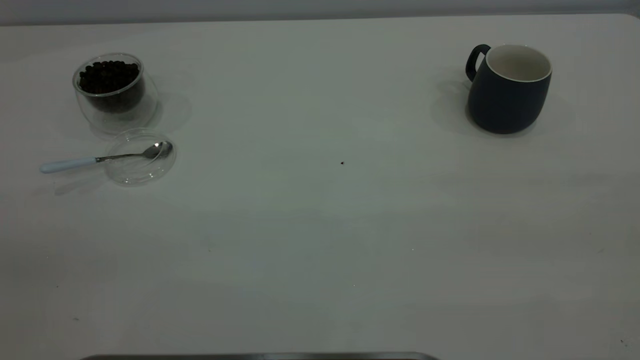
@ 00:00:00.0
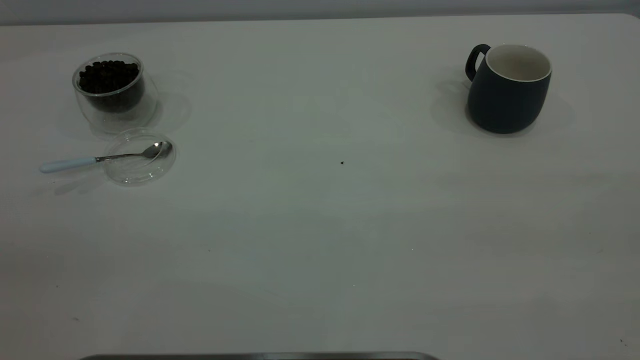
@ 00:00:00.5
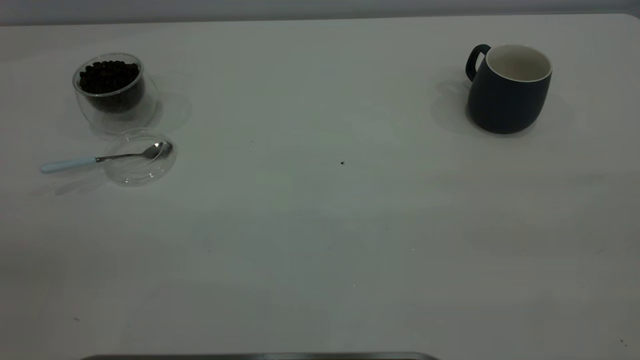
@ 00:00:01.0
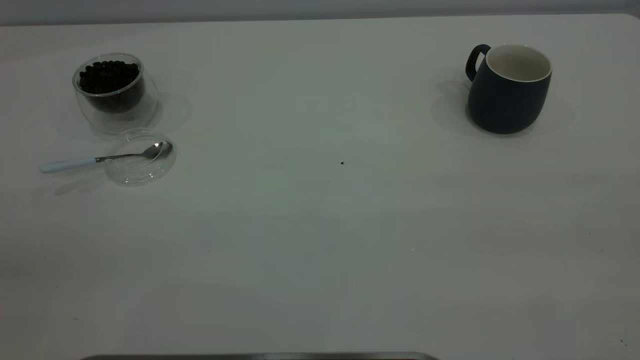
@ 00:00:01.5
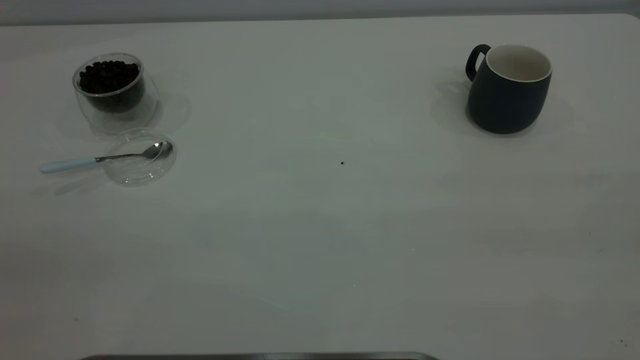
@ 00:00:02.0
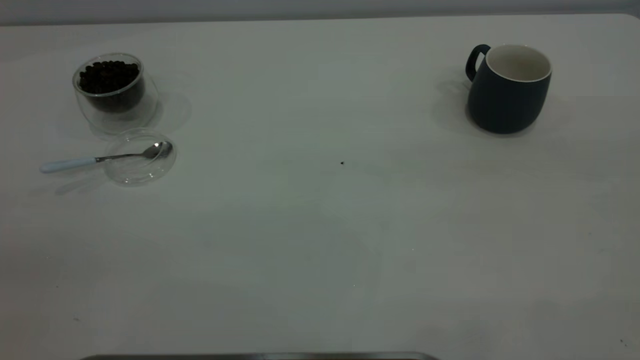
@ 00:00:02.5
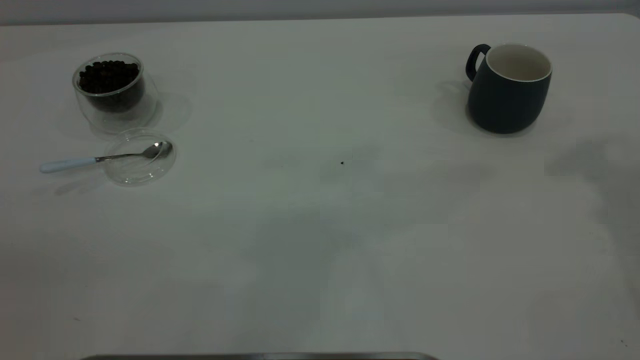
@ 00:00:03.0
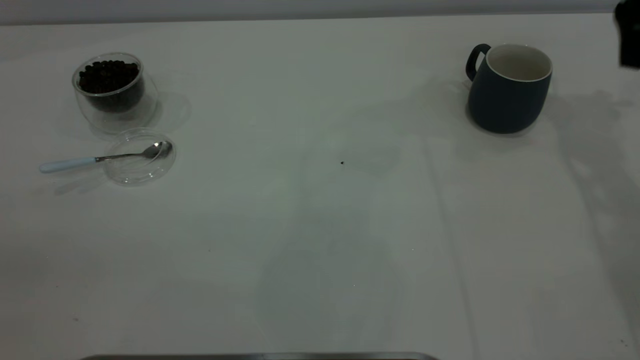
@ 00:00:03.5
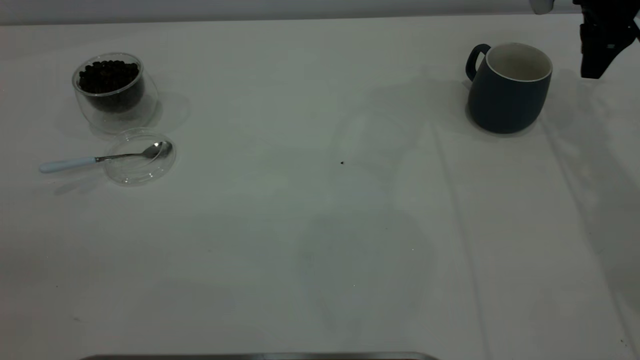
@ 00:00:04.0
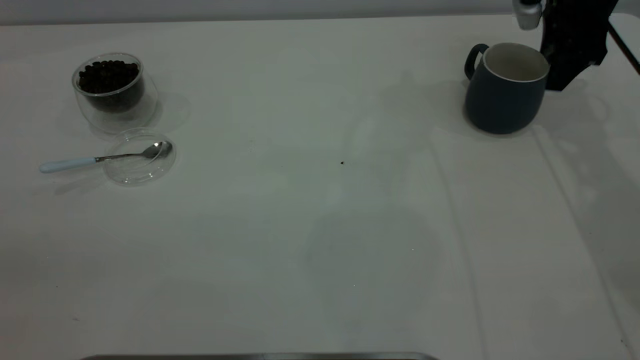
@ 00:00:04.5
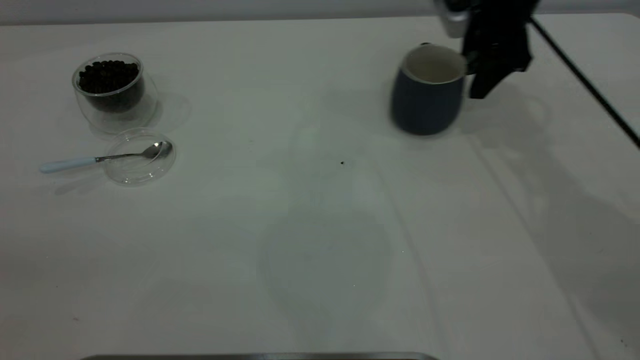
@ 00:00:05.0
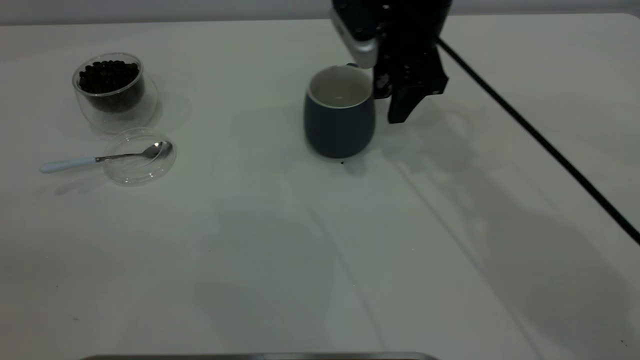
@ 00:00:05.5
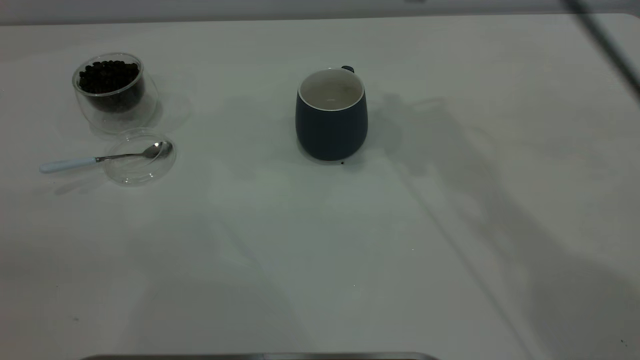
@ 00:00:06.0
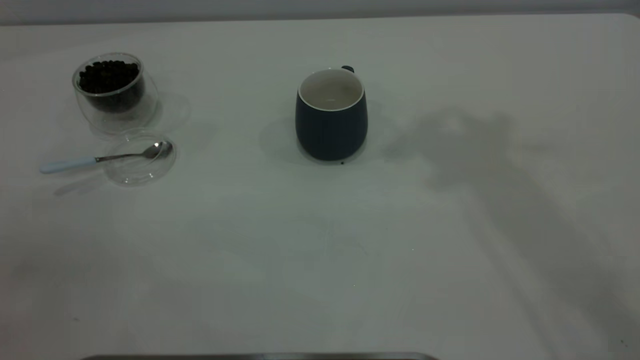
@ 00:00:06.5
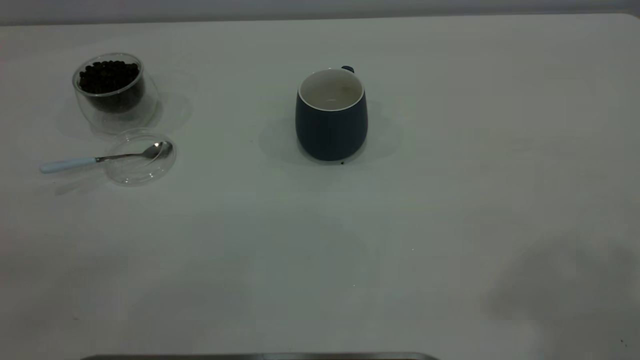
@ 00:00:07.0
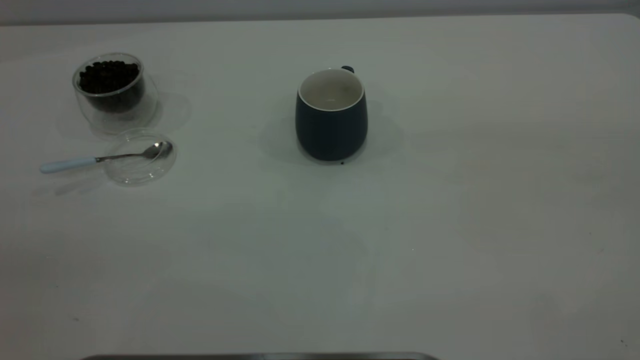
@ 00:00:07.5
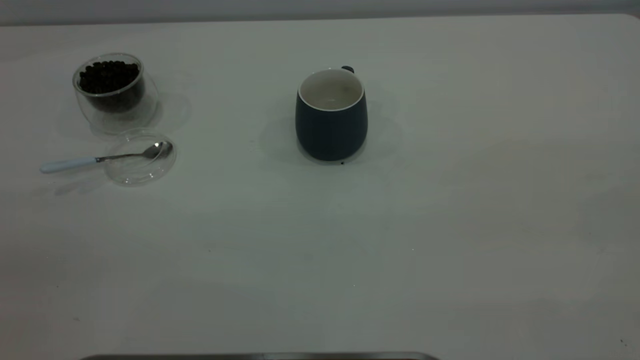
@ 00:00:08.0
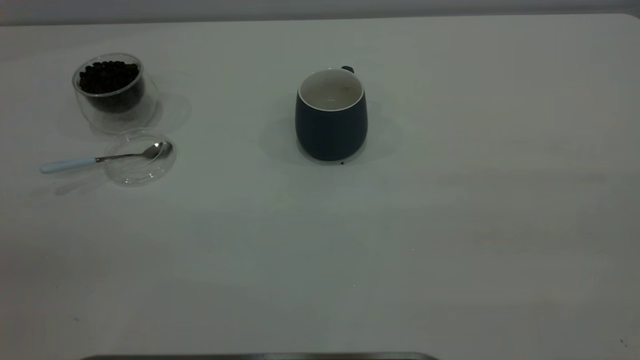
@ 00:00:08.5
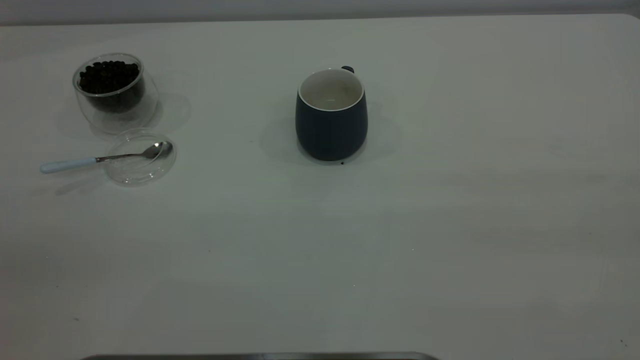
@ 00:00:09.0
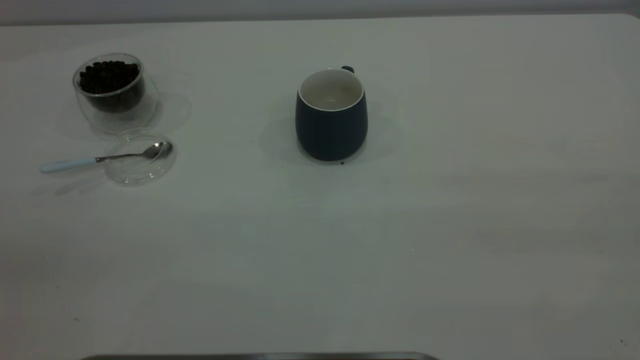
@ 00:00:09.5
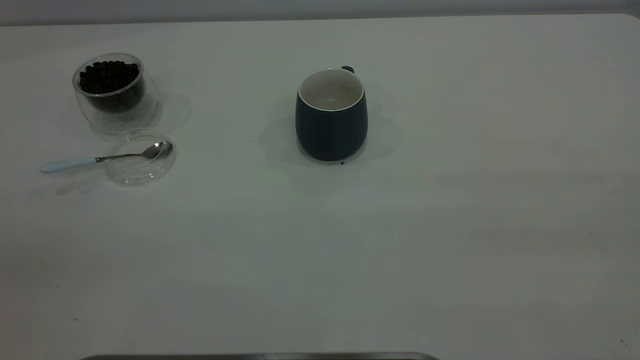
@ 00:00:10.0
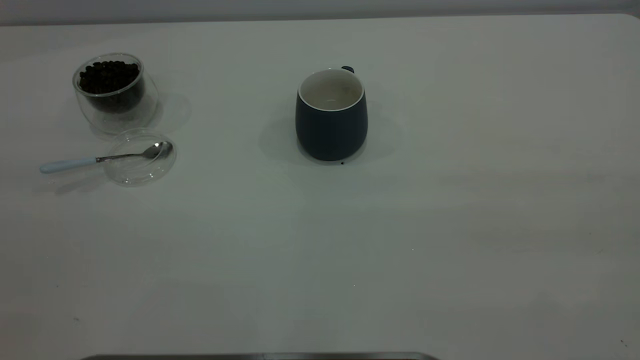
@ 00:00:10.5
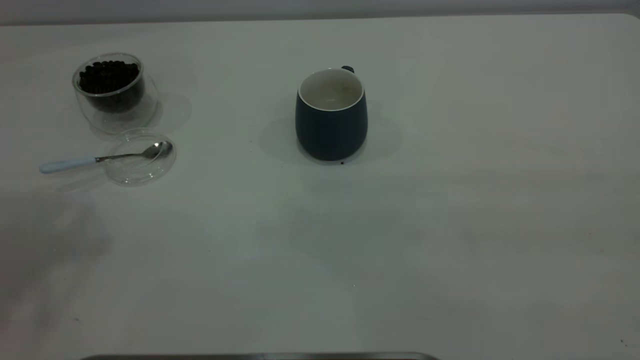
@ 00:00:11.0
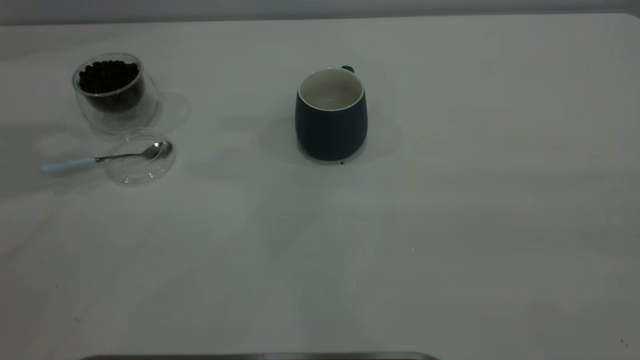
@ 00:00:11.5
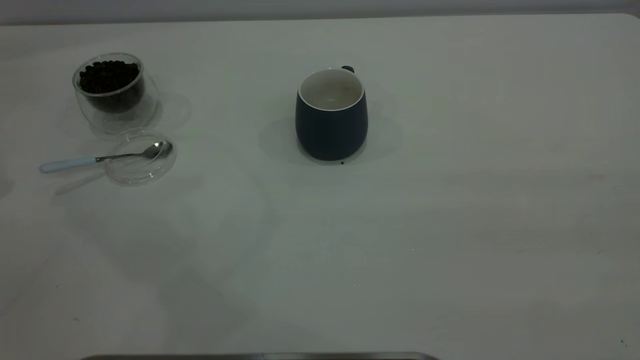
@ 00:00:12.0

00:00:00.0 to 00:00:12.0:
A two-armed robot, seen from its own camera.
Task of the whole recording: the right gripper place the grey cup in the center of the table, the left gripper take the blue spoon from the cup lid and scoop out the coffee beans from the coffee cup and put them into the grey cup, the left gripper put the spoon back into the cup lid.
Step, 00:00:00.0 to 00:00:05.5: Move the cup to the center of view.
00:00:00.0 to 00:00:02.0: Both grippers stay put.
00:00:02.0 to 00:00:04.0: The right gripper shifts some 50 cm forward.
00:00:04.0 to 00:00:06.0: The right gripper travels to the left and upward by some 25 cm.
00:00:06.0 to 00:00:08.0: The right gripper shifts some 50 cm backward and to the right.

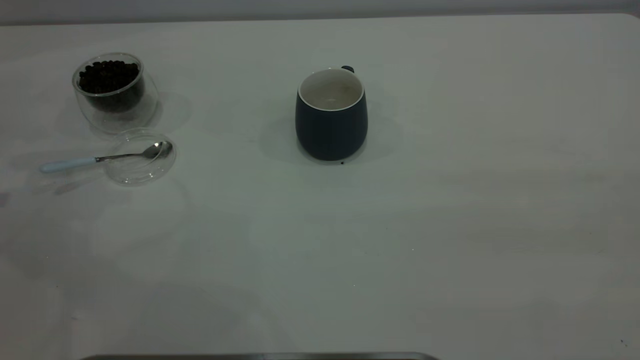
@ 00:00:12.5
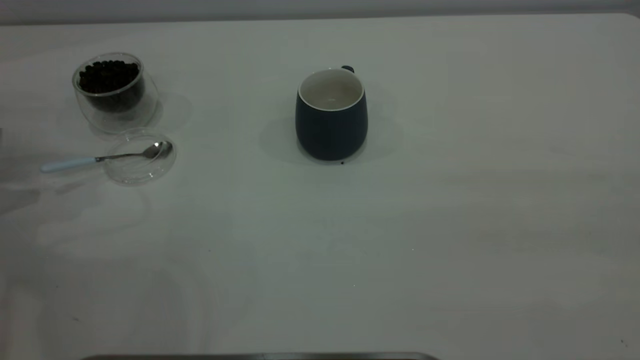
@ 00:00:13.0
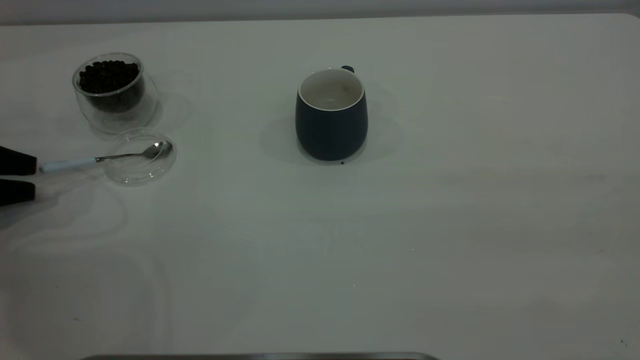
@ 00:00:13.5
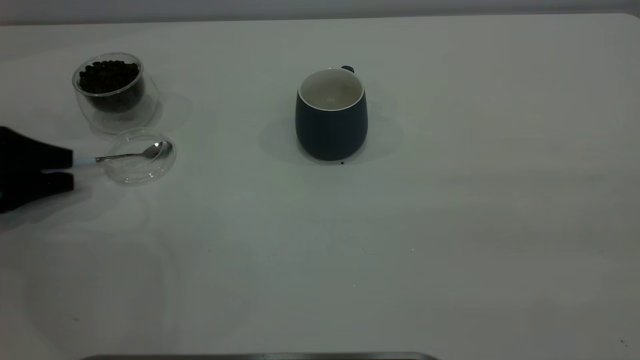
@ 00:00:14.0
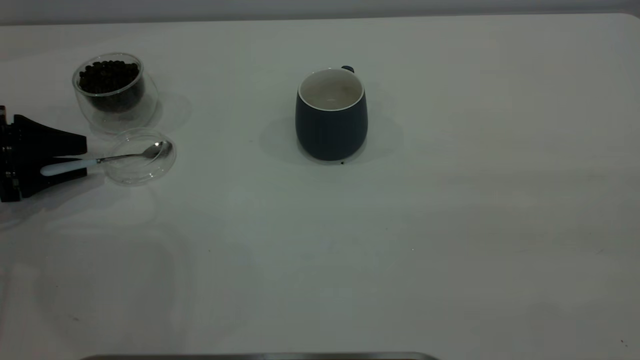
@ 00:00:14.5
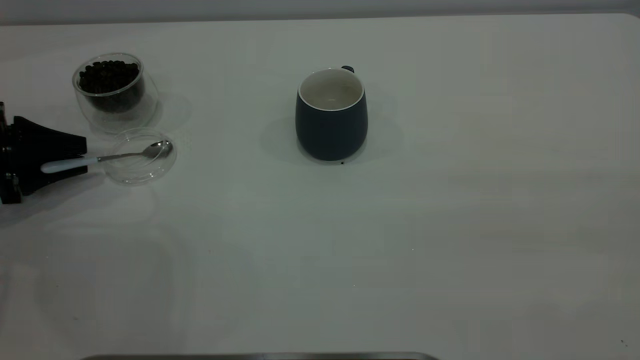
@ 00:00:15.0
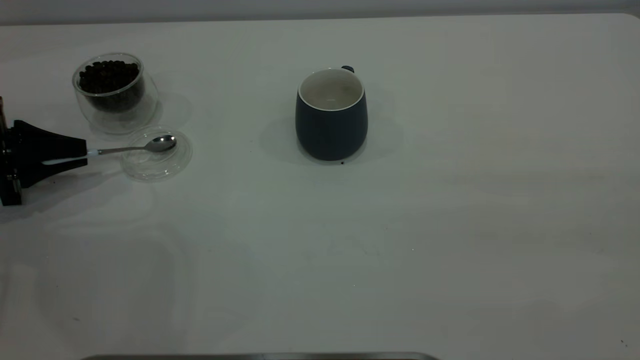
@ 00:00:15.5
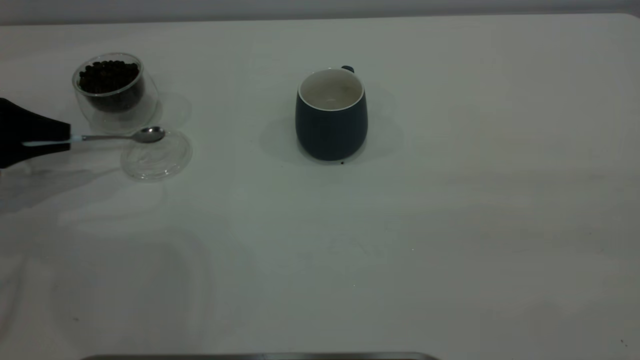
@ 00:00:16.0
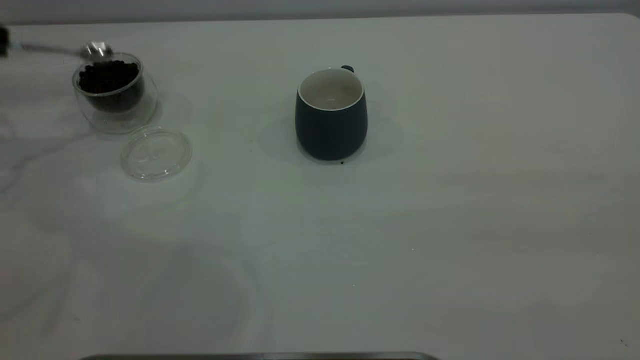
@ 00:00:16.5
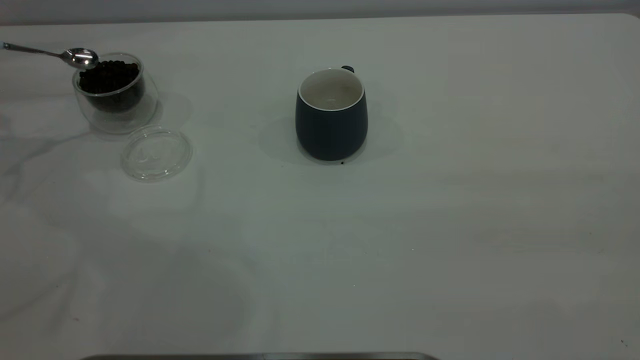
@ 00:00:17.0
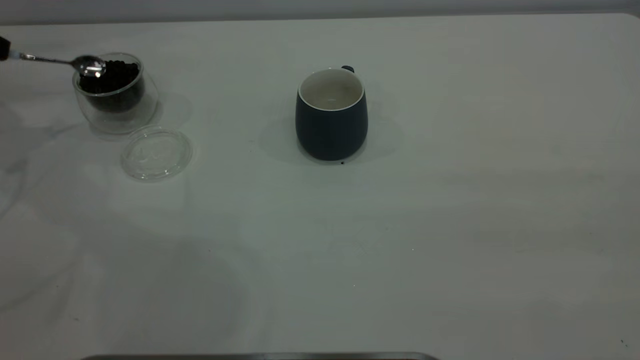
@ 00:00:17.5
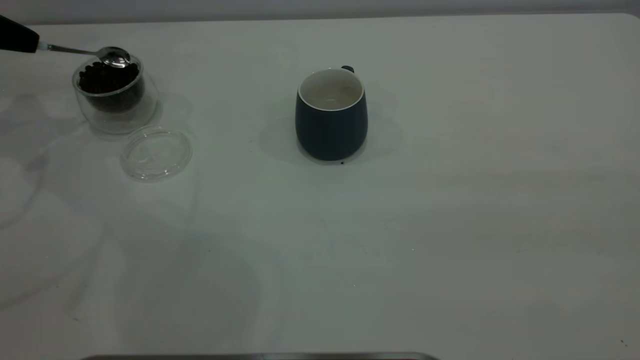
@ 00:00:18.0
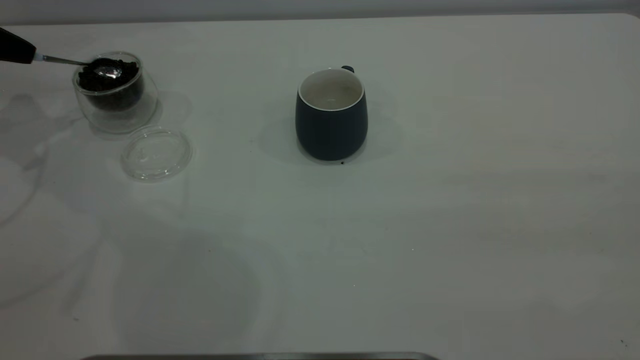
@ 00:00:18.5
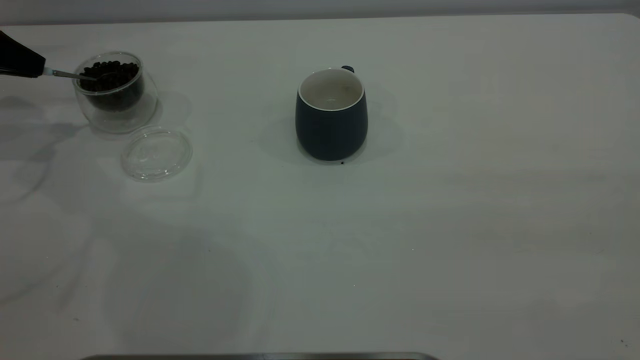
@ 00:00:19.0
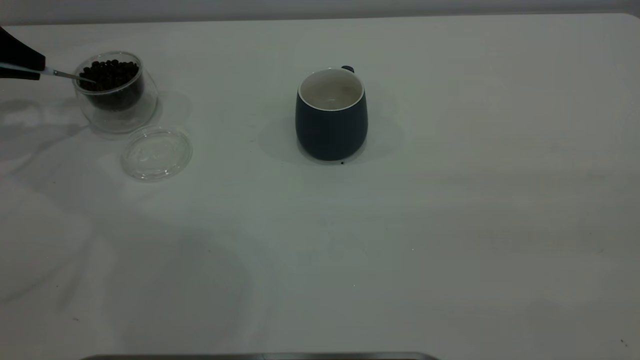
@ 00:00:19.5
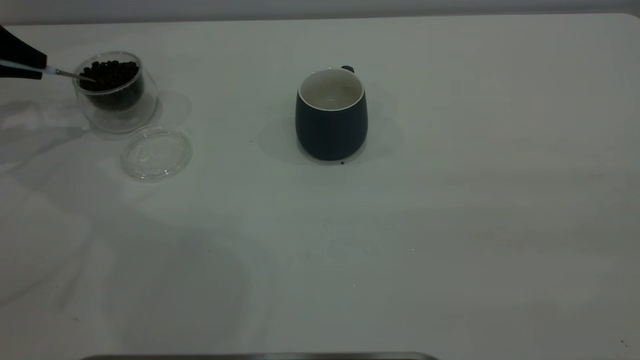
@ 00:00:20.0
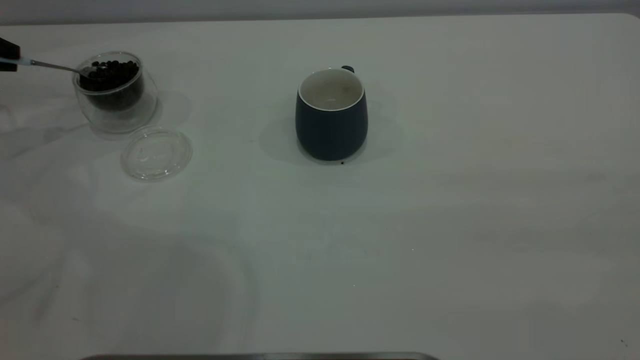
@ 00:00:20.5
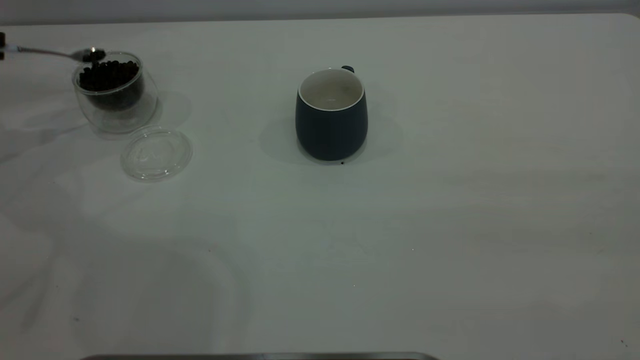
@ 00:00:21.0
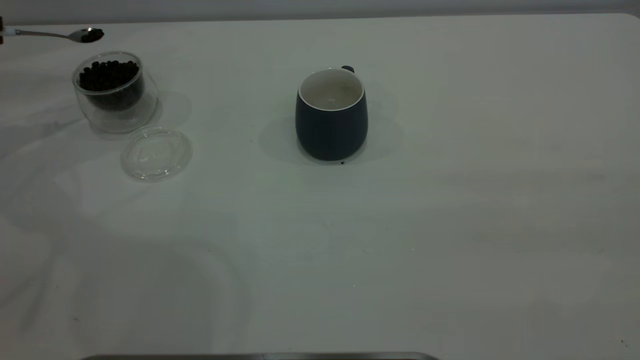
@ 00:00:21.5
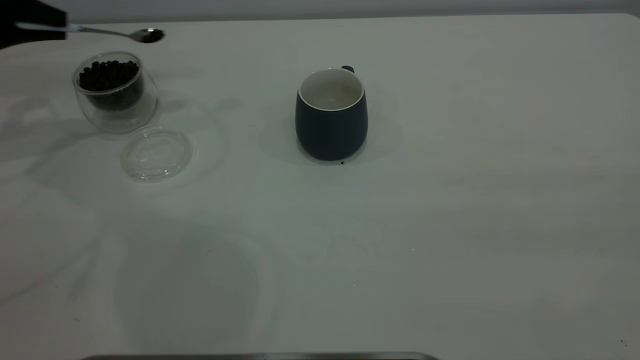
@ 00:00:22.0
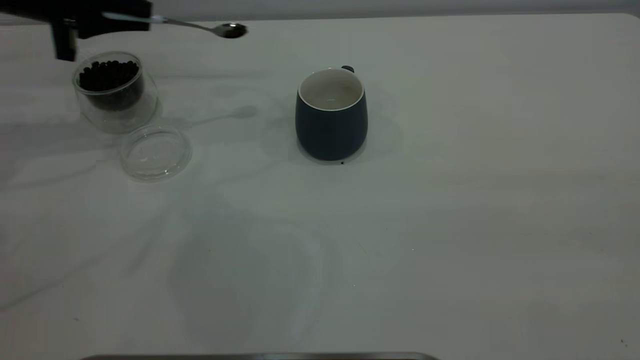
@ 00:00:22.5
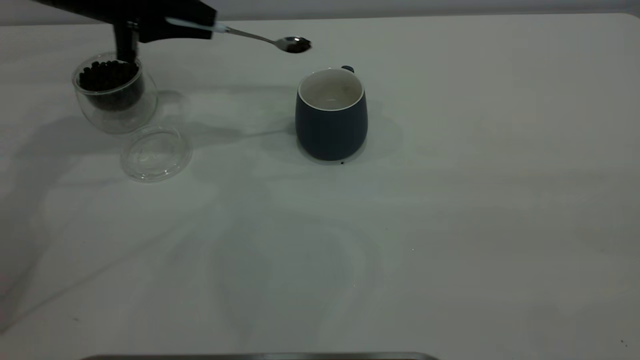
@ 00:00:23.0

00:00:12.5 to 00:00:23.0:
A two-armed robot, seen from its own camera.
Task of the whole recording: the right gripper place the grey cup in the center of the table, the left gripper take the blue spoon from the cup lid and scoop out the coffee beans from the coffee cup and put them into the grey cup, the left gripper put the spoon back into the cup lid.
Step, 00:00:12.5 to 00:00:16.0: Pick up the spoon.
00:00:12.5 to 00:00:14.5: The left gripper goes about 15 cm downward and to the right.
00:00:14.5 to 00:00:16.5: The left gripper heads upward and forward, covering roughly 15 cm, and closes its fingers.
00:00:21.0 to 00:00:23.0: The left gripper goes some 25 cm to the right.
